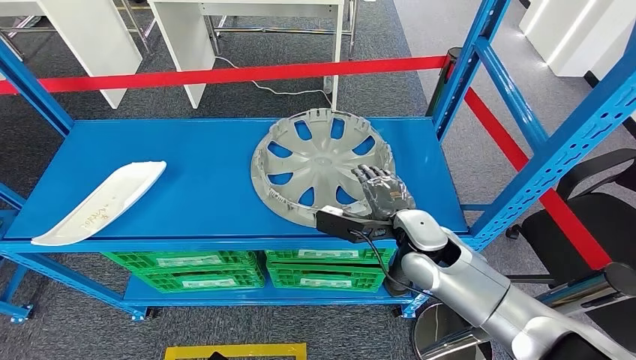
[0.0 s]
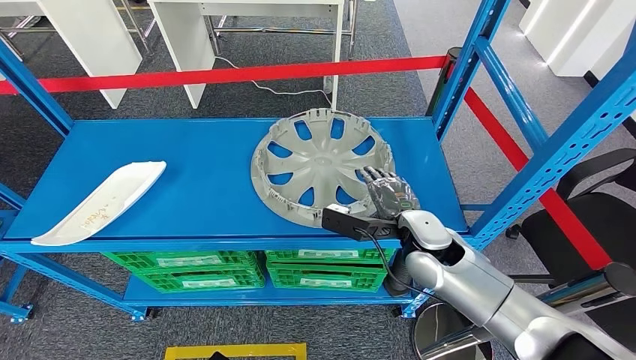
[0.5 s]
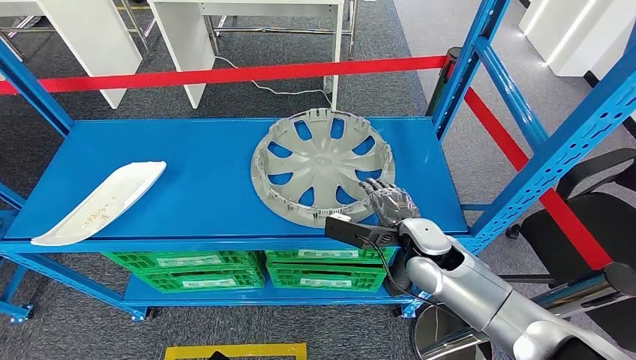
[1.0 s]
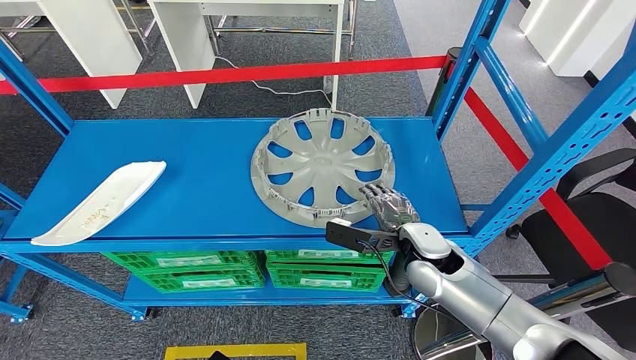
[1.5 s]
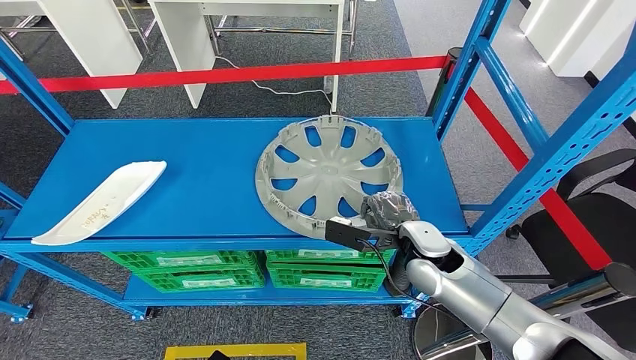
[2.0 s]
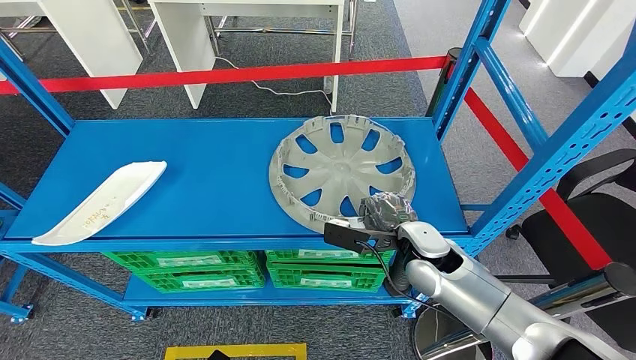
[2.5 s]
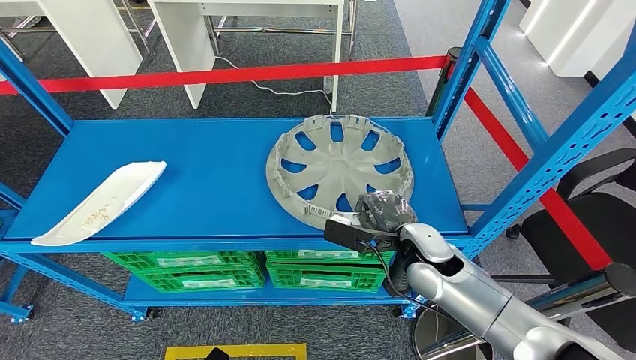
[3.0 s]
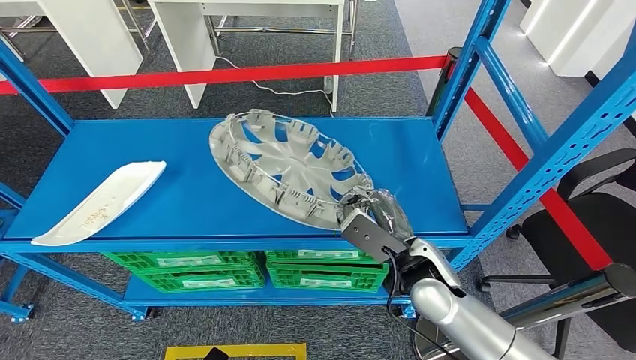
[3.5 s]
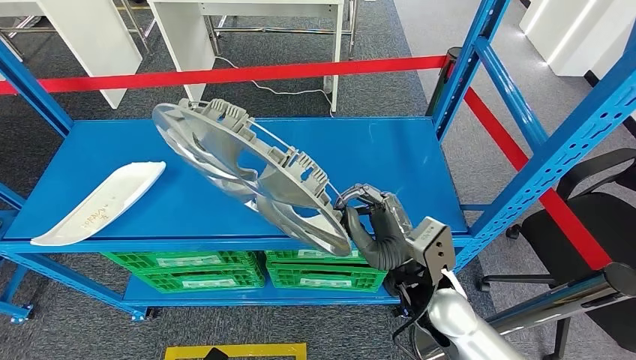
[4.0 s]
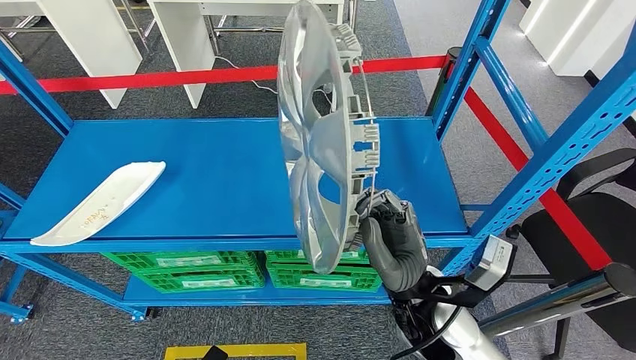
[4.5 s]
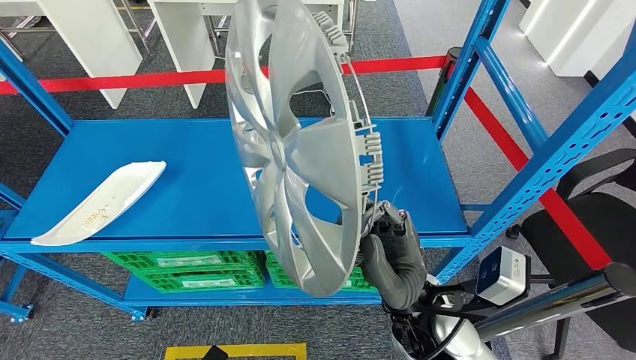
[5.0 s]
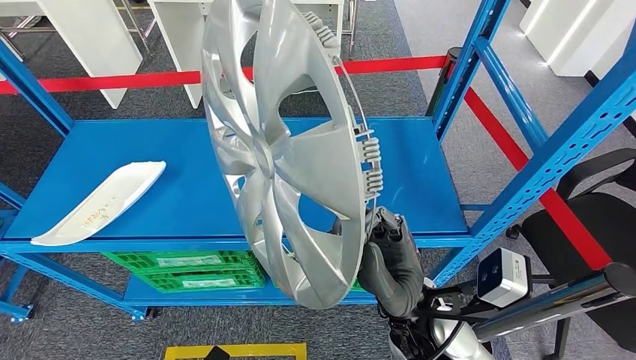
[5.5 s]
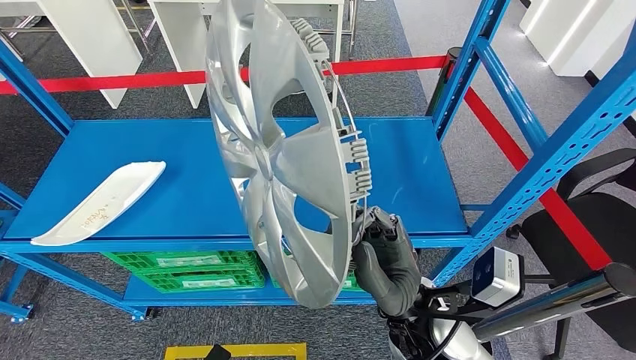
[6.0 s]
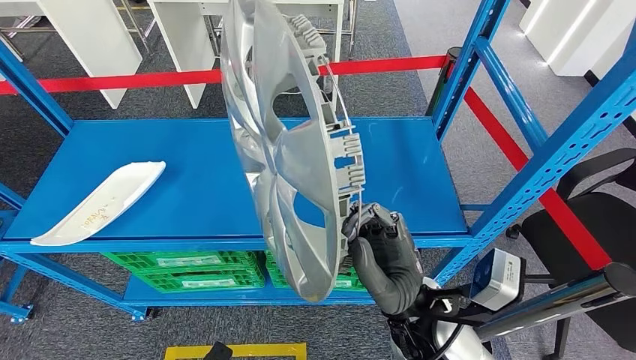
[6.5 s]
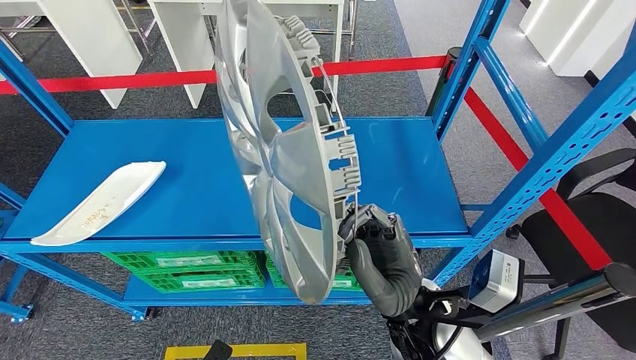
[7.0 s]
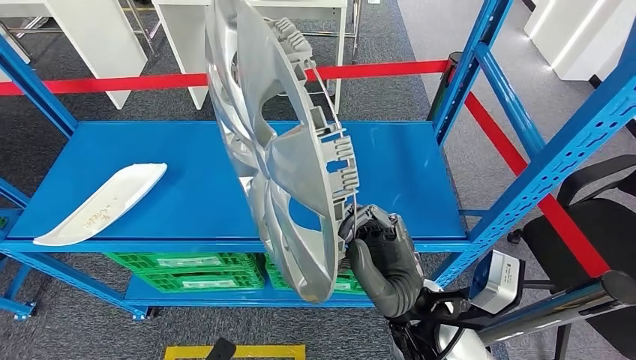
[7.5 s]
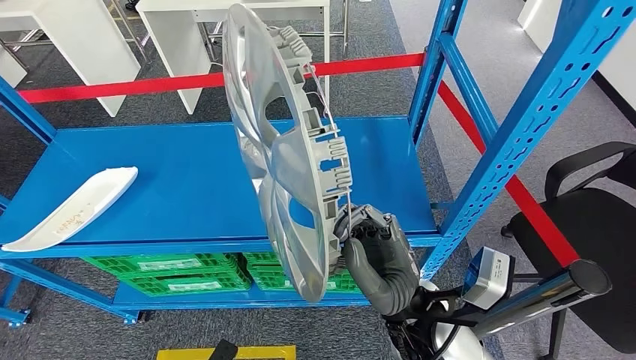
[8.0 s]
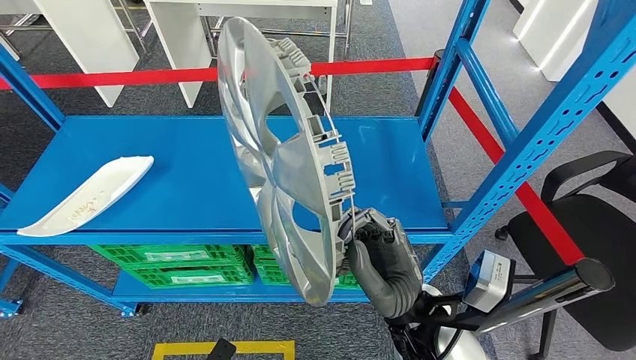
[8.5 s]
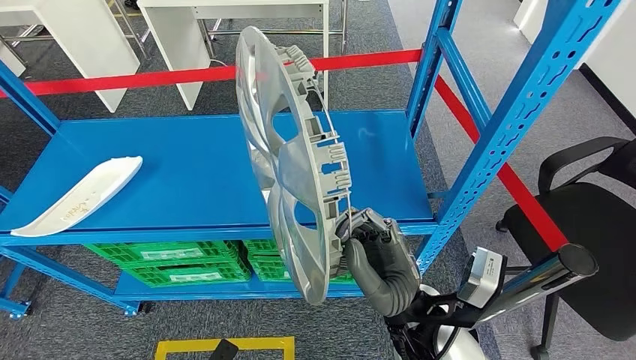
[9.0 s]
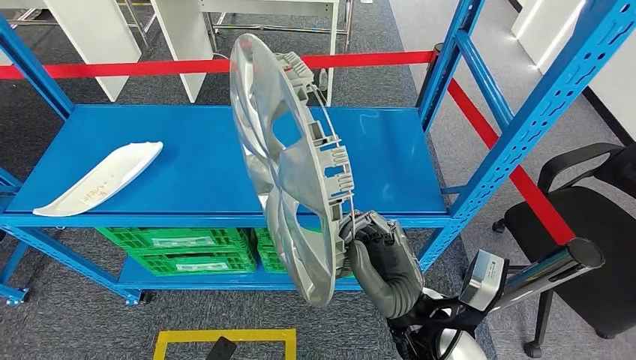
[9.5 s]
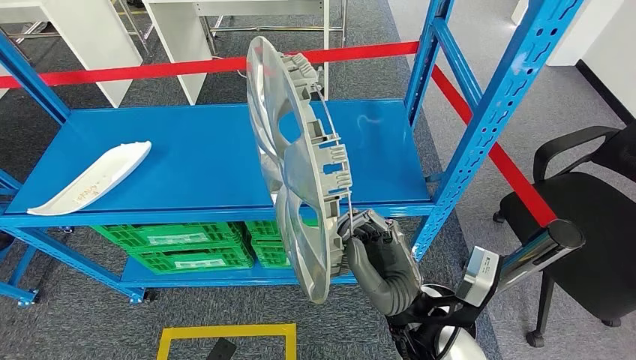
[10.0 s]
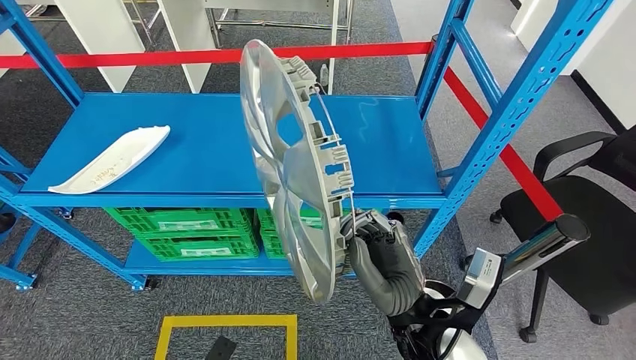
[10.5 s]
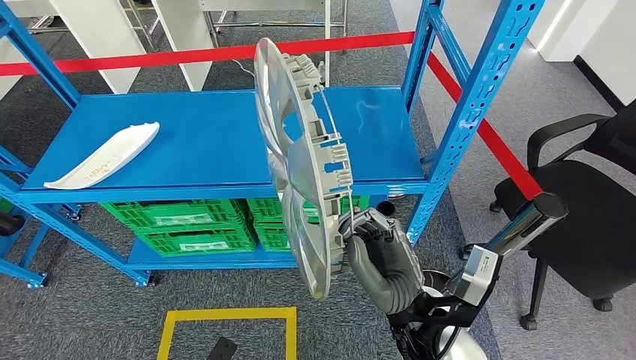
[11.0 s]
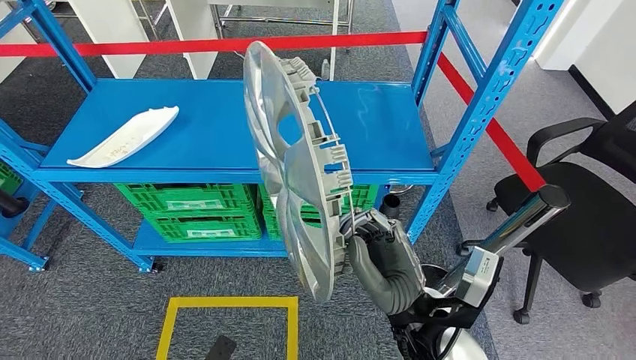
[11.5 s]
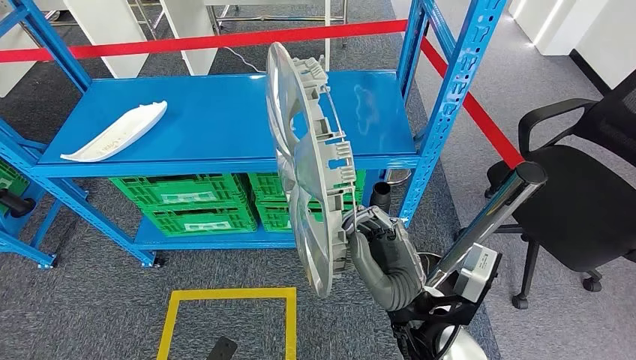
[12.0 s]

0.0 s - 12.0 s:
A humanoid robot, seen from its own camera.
Step, 0.0 s - 7.5 s: Pick up the large material from the shelf.
0.0 s - 2.0 s: The hands stay close to where they were, moving slightly.
2.0 s - 4.0 s: The right hand heads backward, covering roughly 10 cm.
4.0 s - 6.0 s: The right hand changes place by about 5 cm.

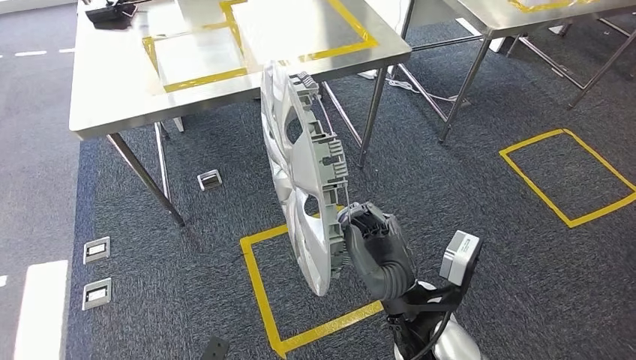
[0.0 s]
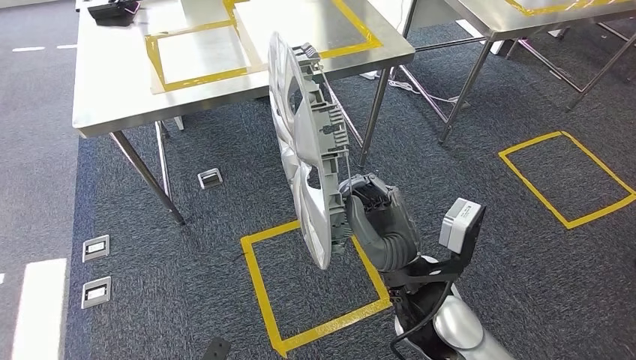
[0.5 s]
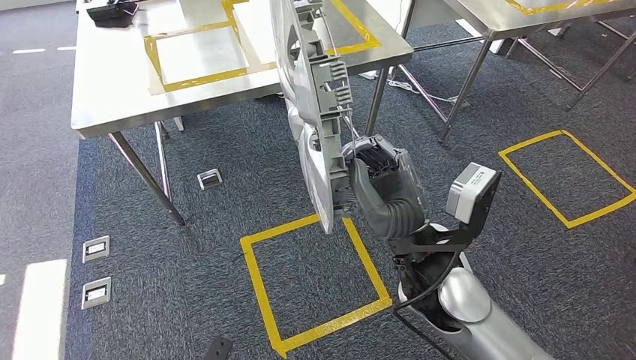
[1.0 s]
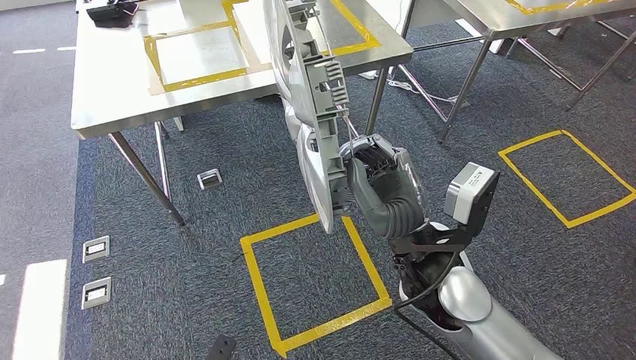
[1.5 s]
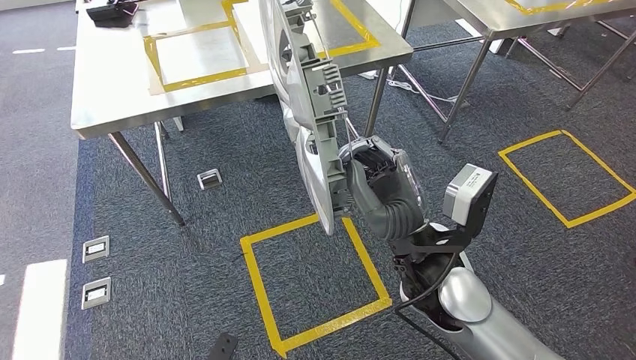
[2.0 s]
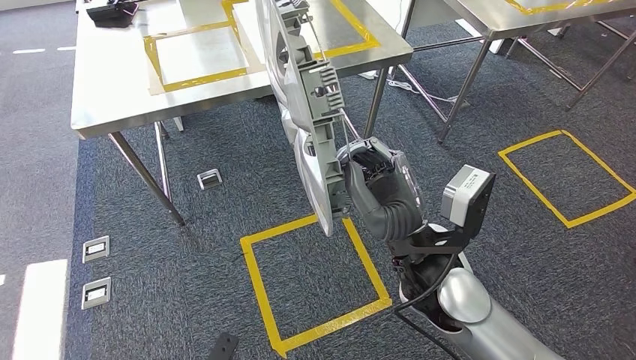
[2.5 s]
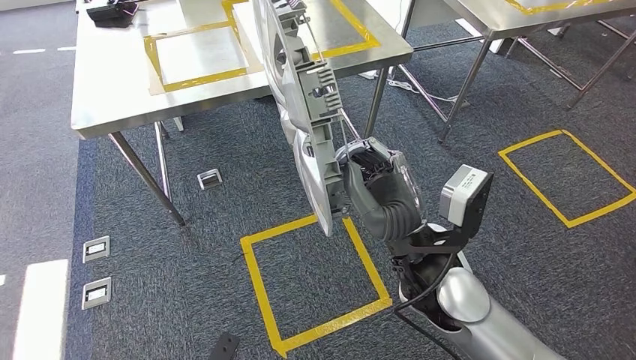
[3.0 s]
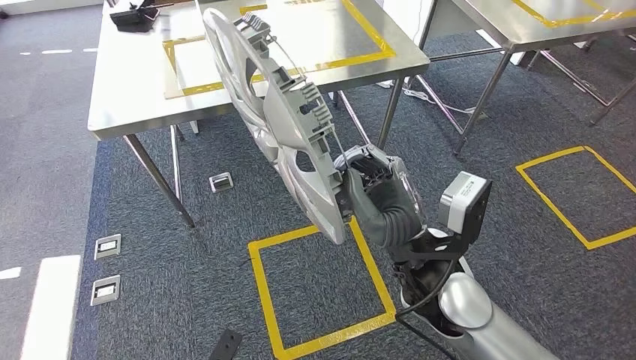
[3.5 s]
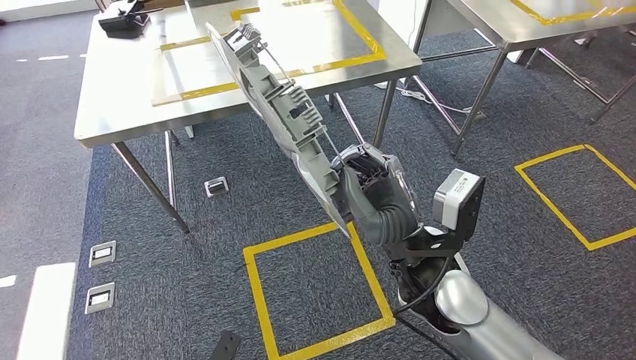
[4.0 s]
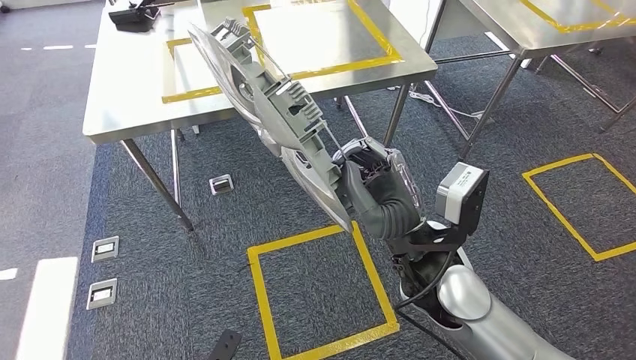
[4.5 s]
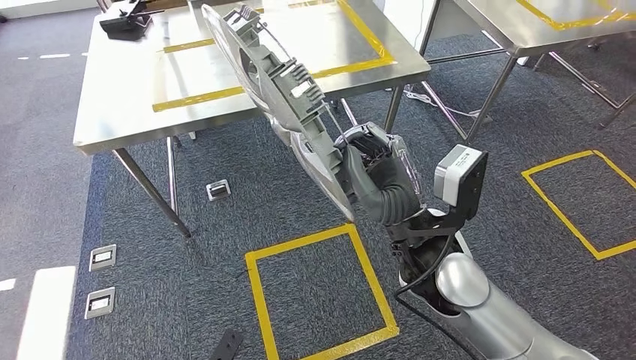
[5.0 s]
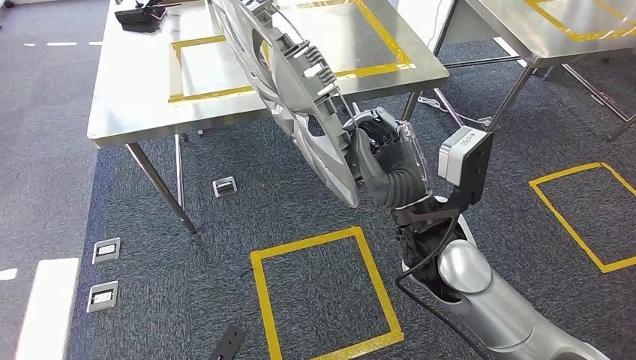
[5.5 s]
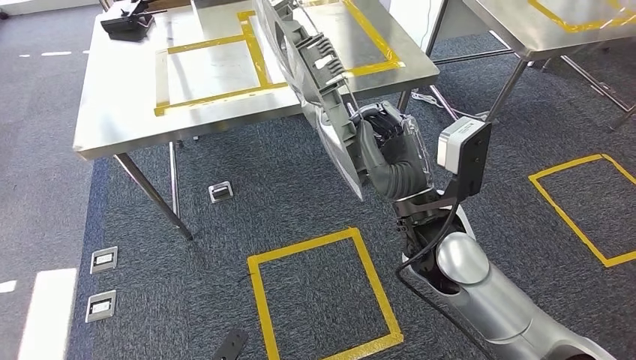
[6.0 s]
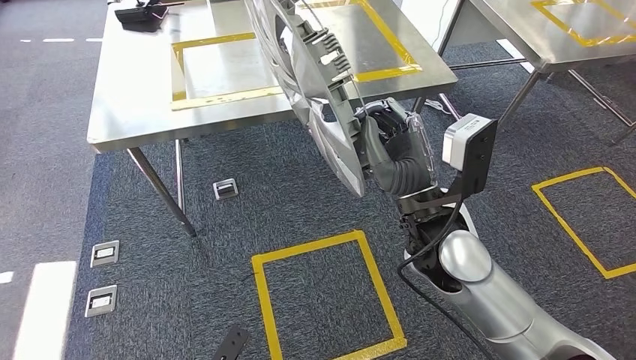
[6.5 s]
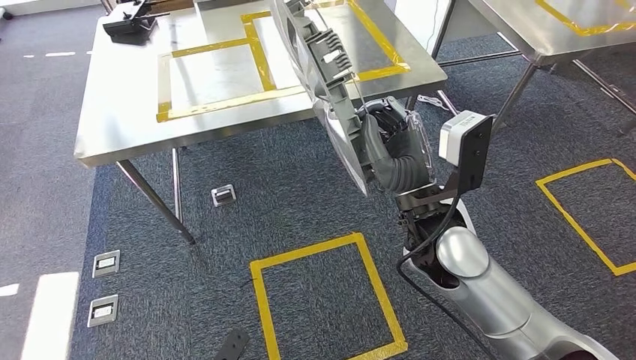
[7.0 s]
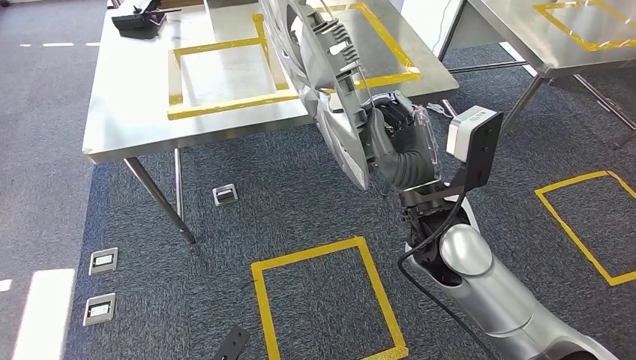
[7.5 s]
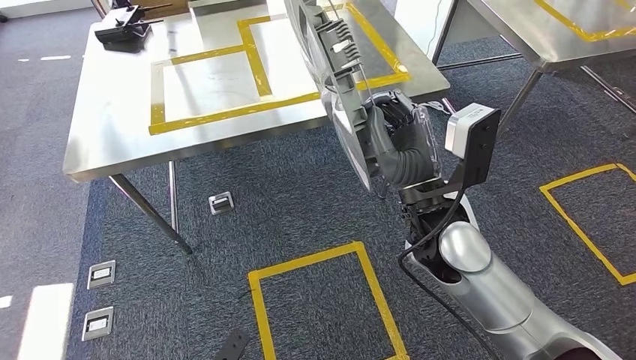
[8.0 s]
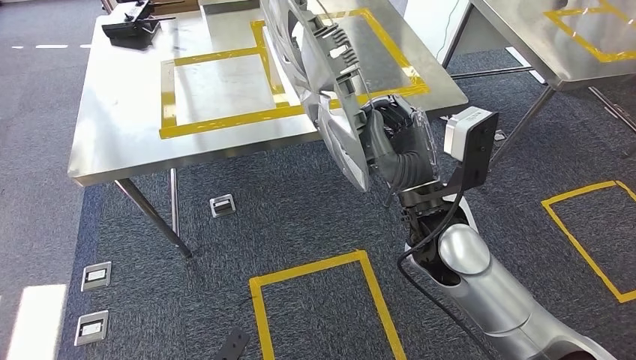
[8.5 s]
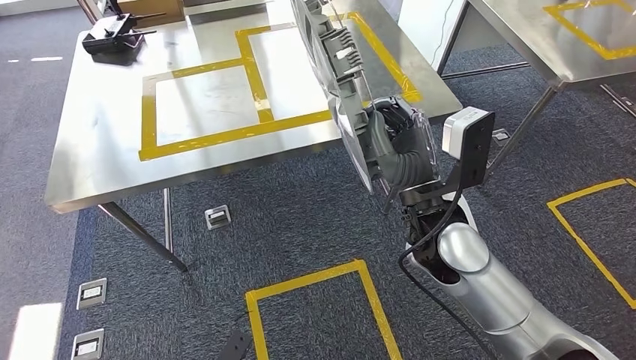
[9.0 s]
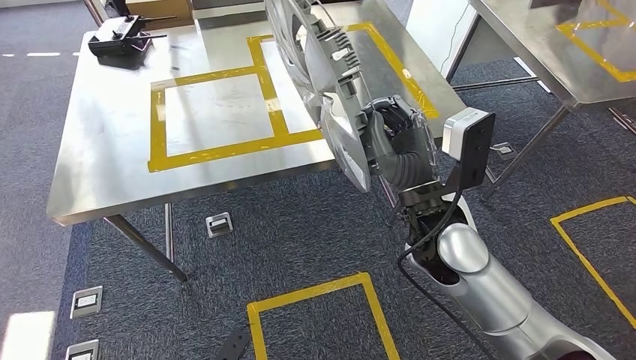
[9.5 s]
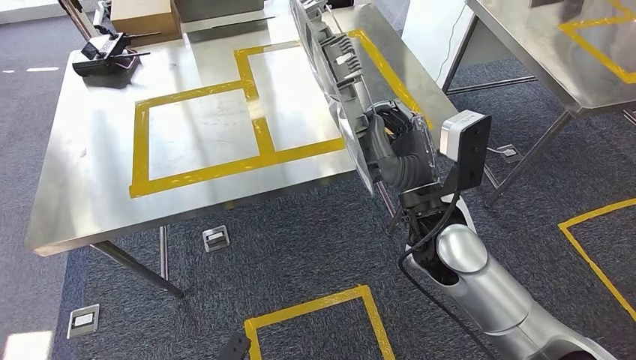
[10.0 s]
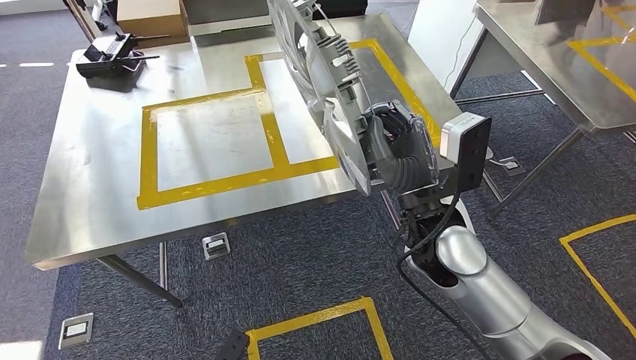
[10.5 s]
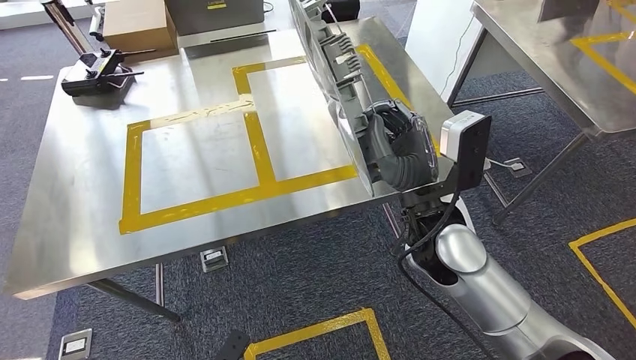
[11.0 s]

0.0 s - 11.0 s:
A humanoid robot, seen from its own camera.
Step, 0.0 s - 8.5 s: Move the large material to the workbench.
0.0 s - 2.0 s: The right hand moves upward and forward, about 10 cm.
